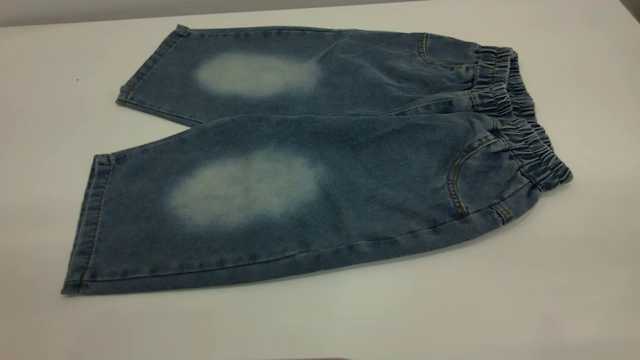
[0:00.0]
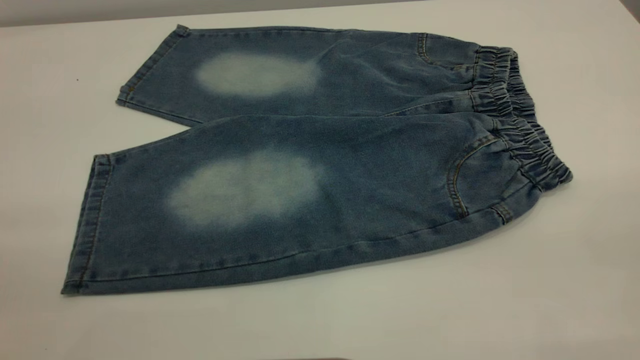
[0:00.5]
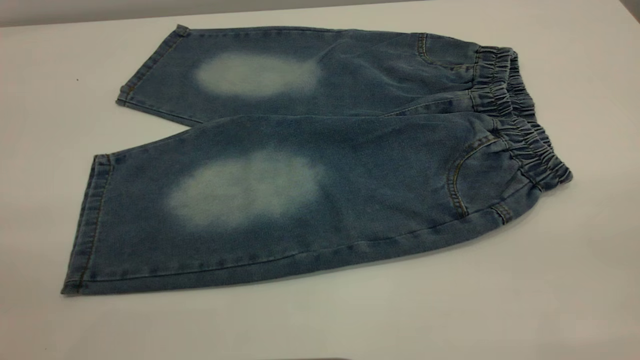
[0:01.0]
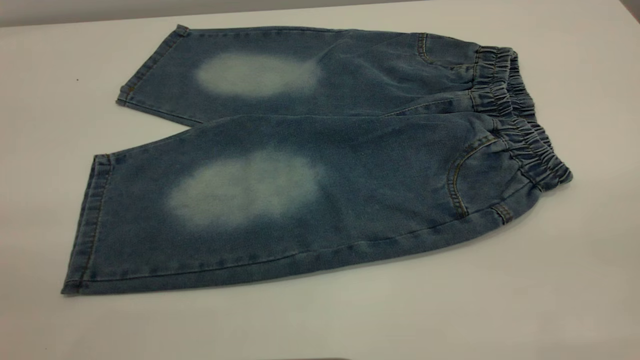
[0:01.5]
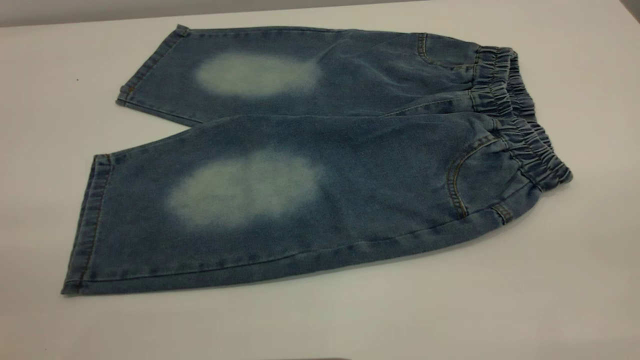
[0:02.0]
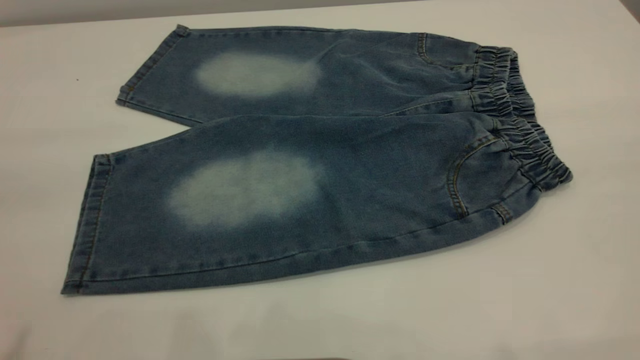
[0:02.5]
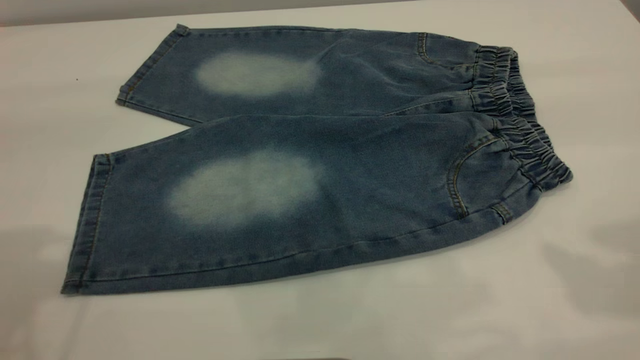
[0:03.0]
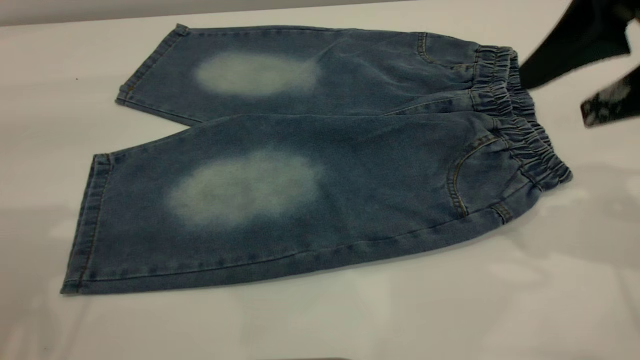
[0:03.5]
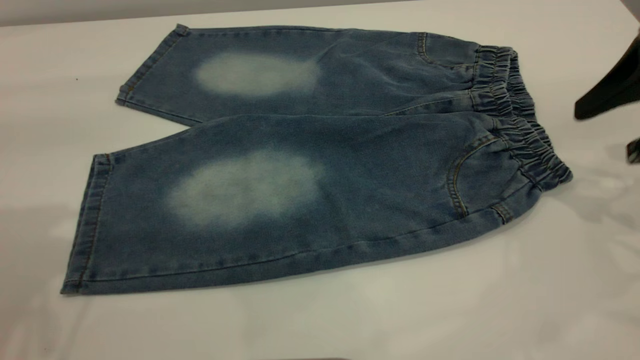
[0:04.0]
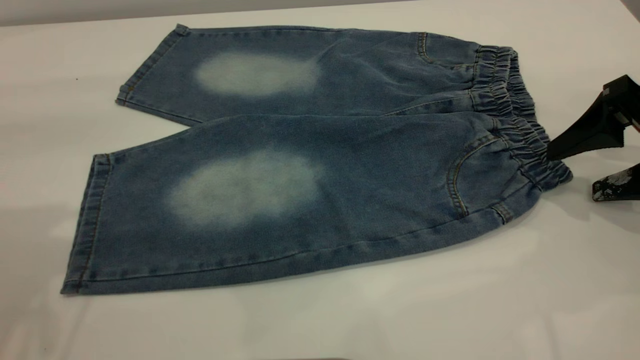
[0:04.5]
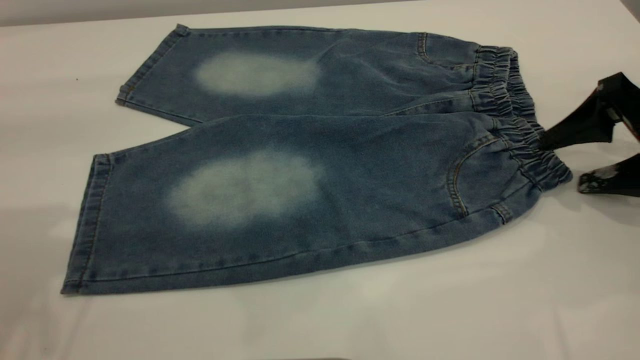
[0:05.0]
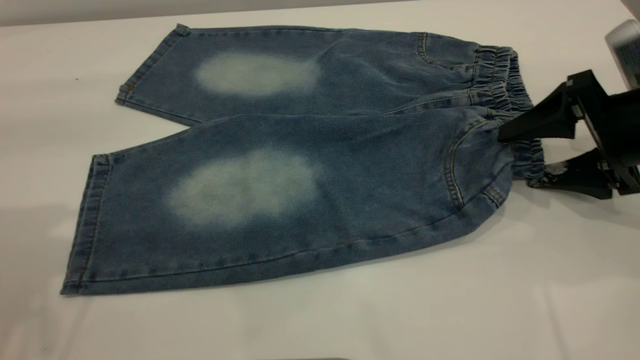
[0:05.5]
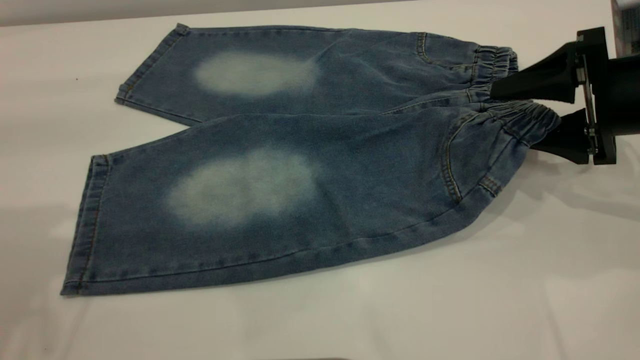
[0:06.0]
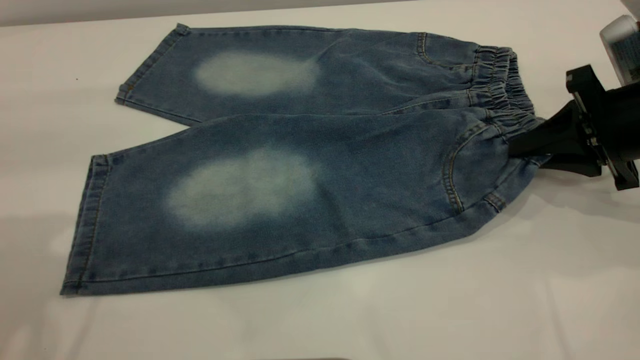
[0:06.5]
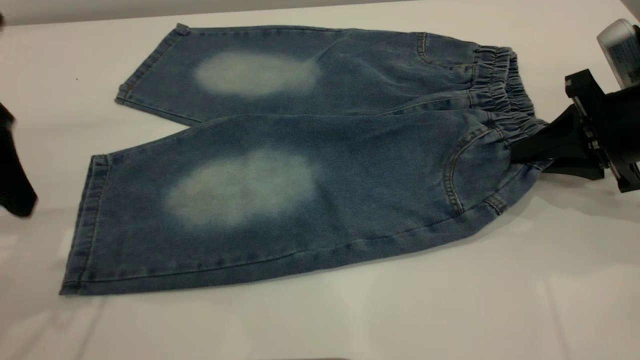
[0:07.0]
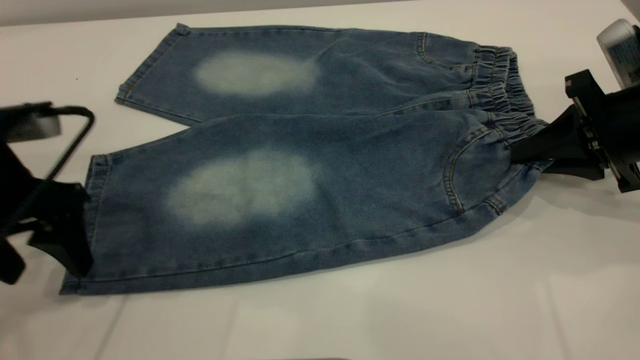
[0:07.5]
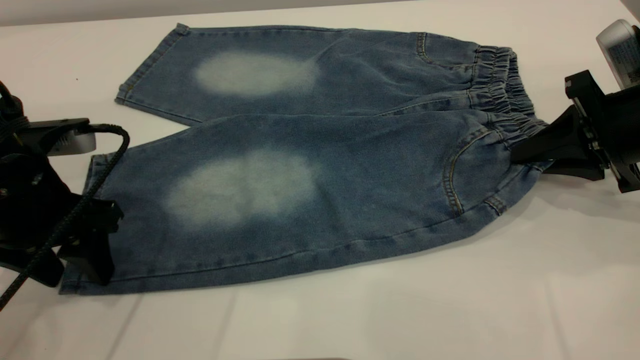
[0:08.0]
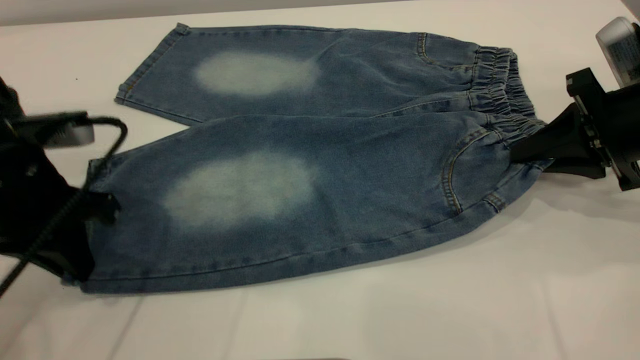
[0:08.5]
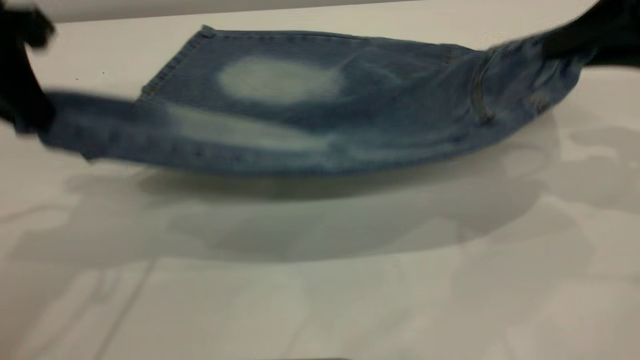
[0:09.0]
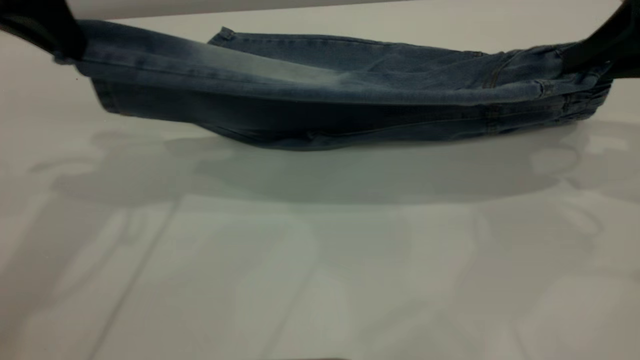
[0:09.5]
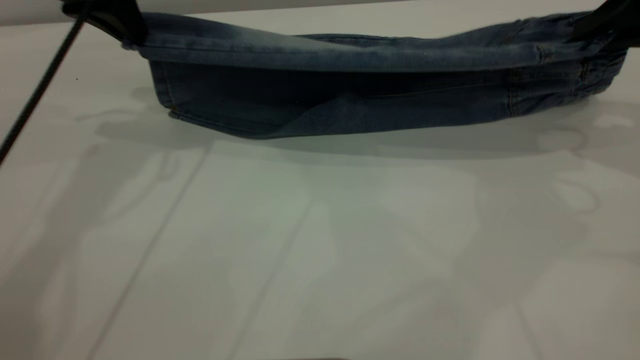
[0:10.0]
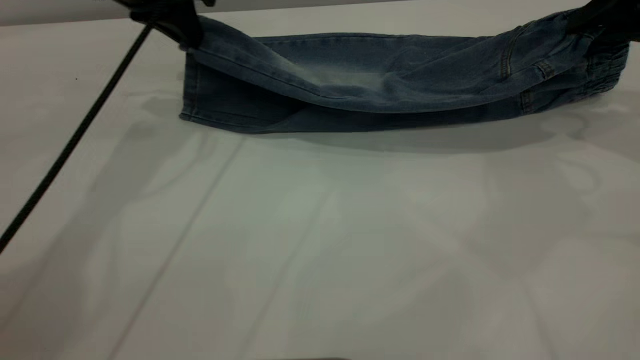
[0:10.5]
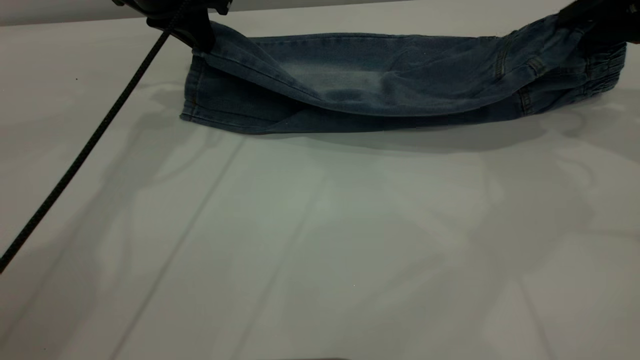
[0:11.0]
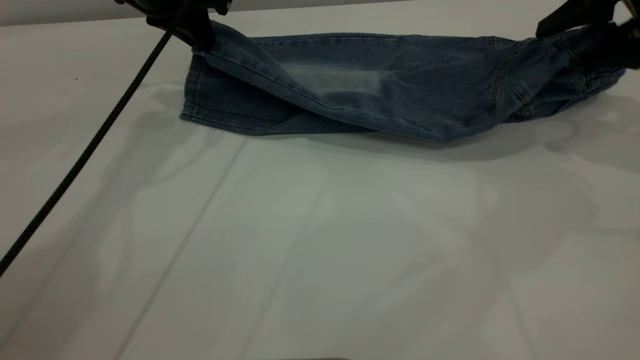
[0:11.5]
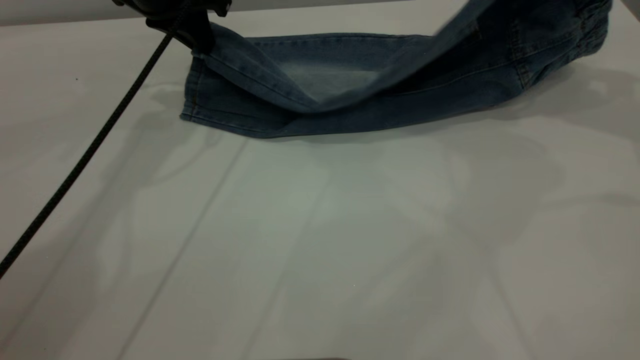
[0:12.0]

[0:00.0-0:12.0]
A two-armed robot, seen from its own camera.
0:00.0 to 0:02.0: Both grippers stay about where they are.
0:02.0 to 0:04.0: The right gripper travels forward and downward by some 35 cm.
0:04.0 to 0:06.0: The right gripper shifts some 5 cm downward.
0:06.0 to 0:08.0: The right gripper closes up. The left gripper is displaced downward by roughly 20 cm.
0:08.0 to 0:10.0: The right gripper is displaced upward by roughly 10 cm, while the left gripper travels forward and upward by about 20 cm, and closes its fingers.
0:10.0 to 0:12.0: The right gripper moves forward, about 5 cm, and opens and closes again. Meanwhile the left gripper shifts by about 10 cm.

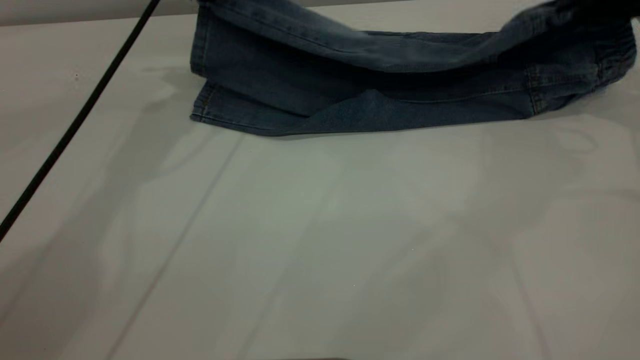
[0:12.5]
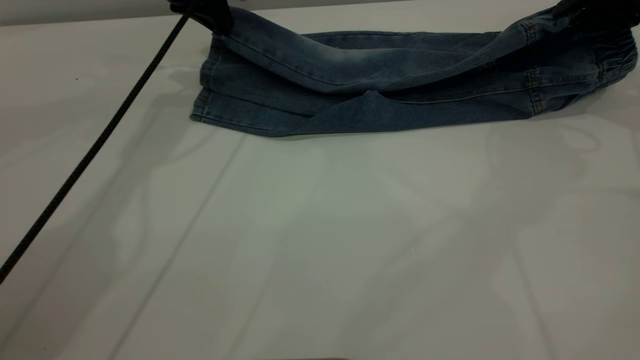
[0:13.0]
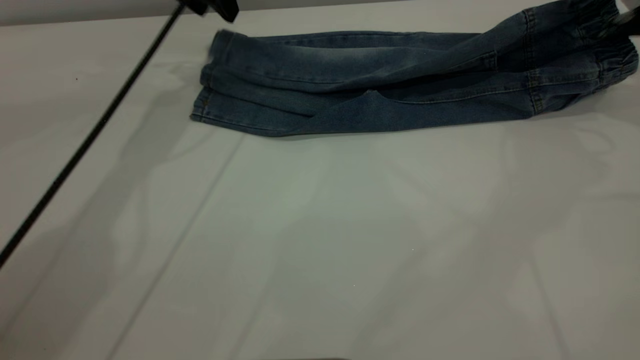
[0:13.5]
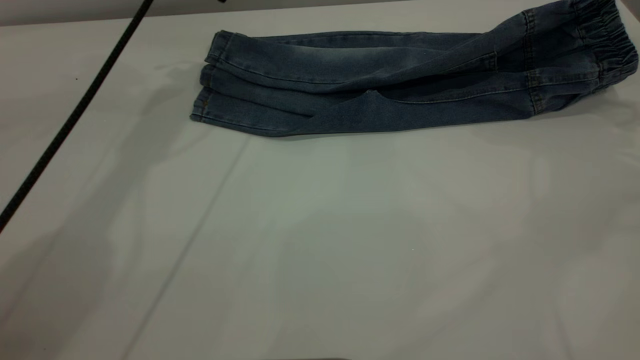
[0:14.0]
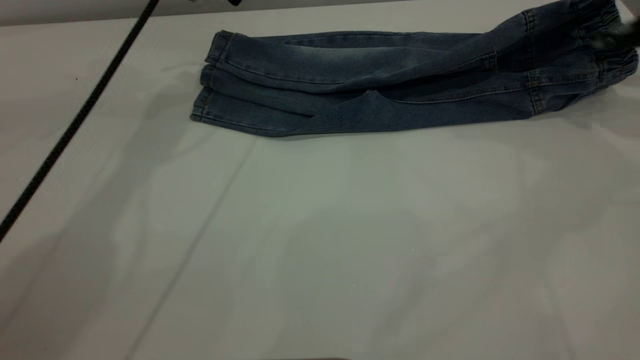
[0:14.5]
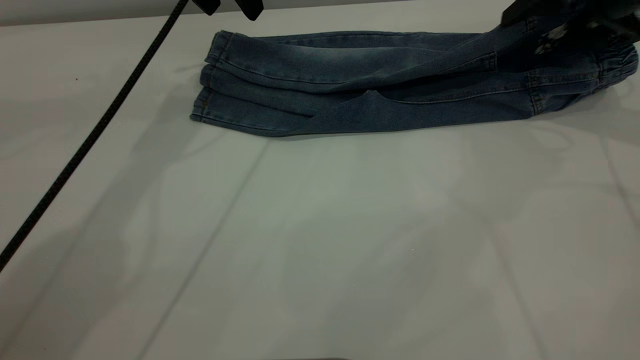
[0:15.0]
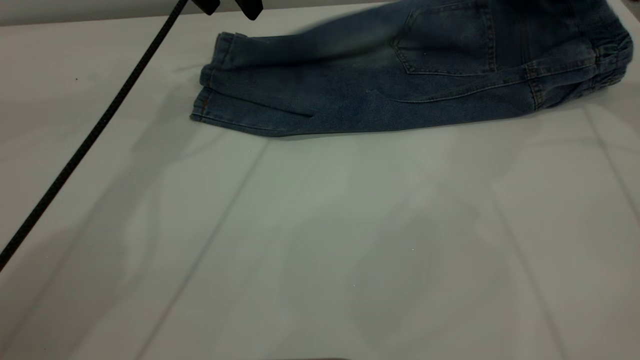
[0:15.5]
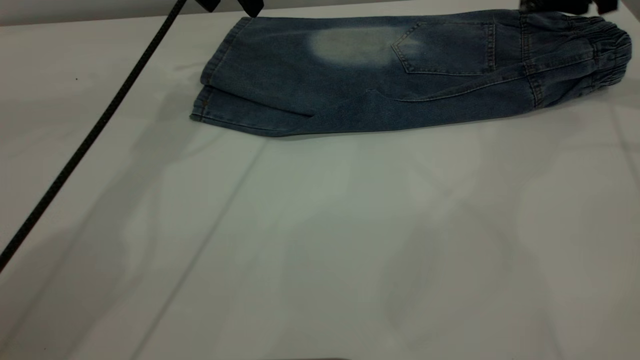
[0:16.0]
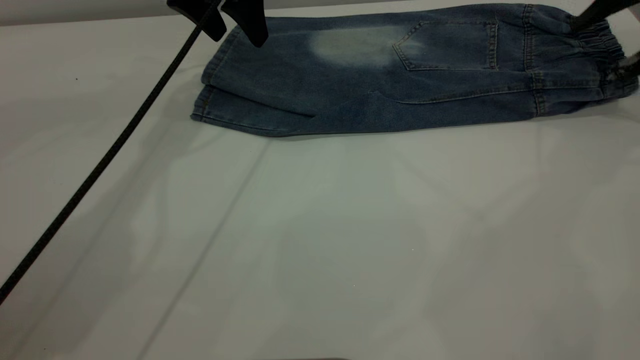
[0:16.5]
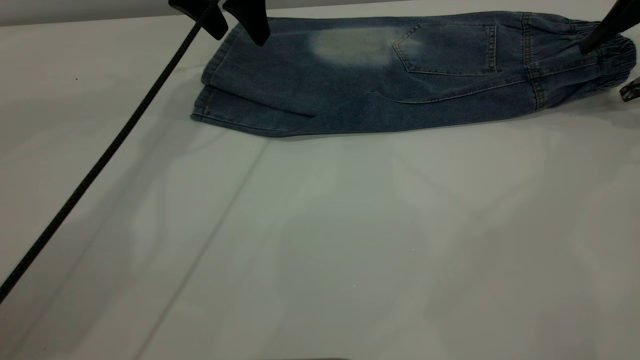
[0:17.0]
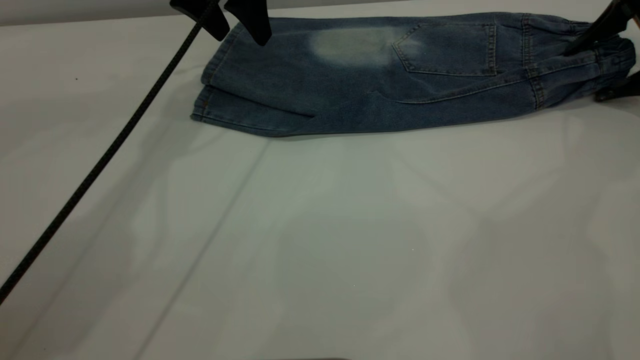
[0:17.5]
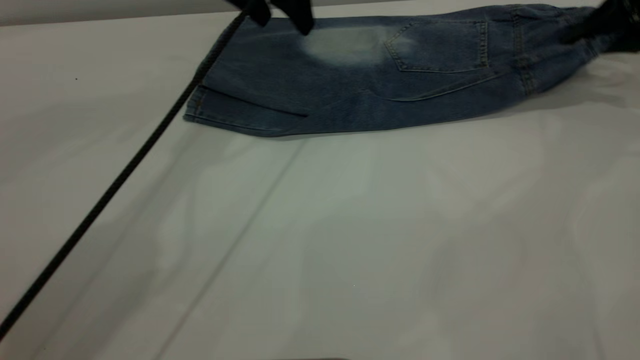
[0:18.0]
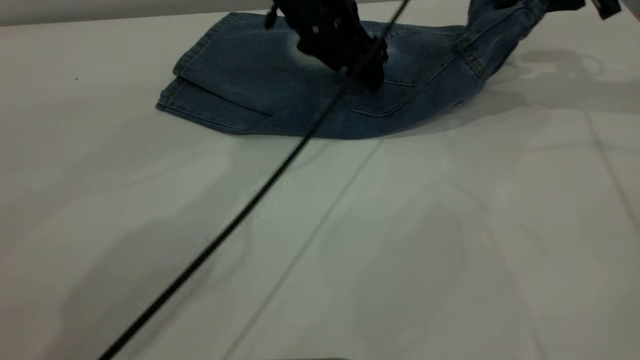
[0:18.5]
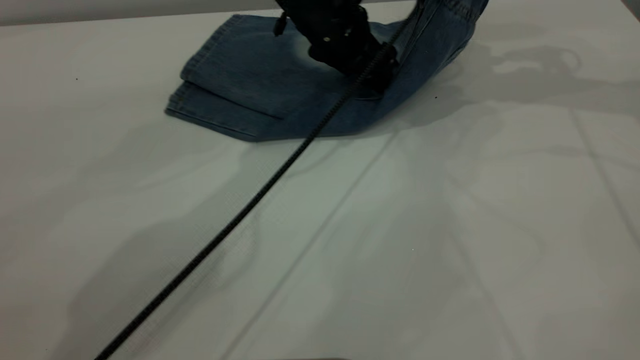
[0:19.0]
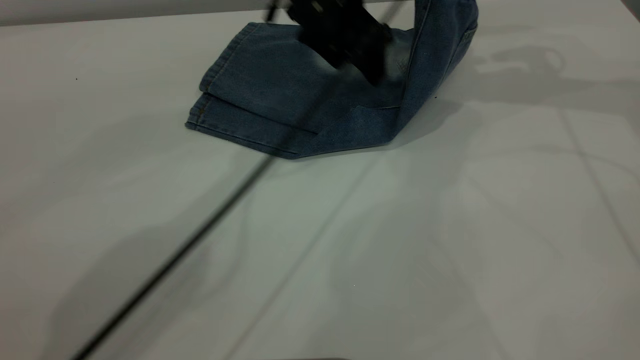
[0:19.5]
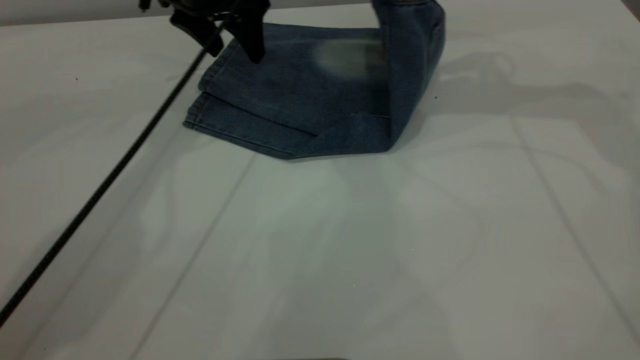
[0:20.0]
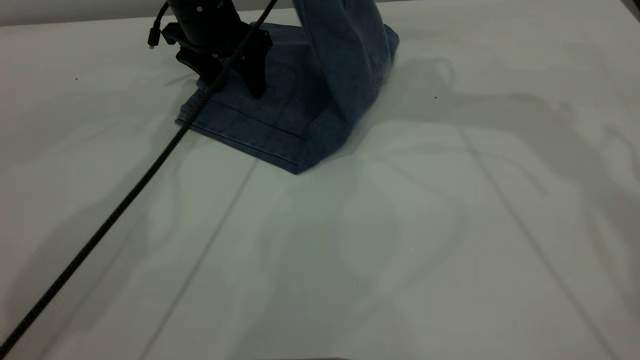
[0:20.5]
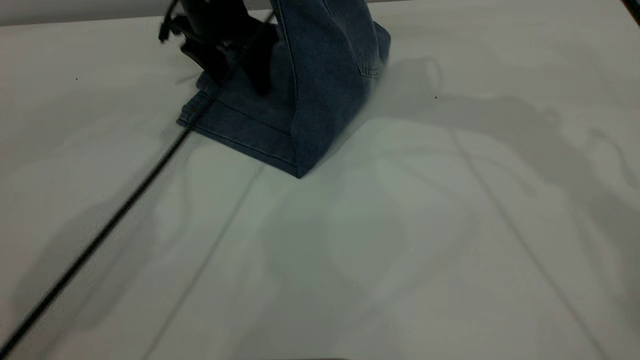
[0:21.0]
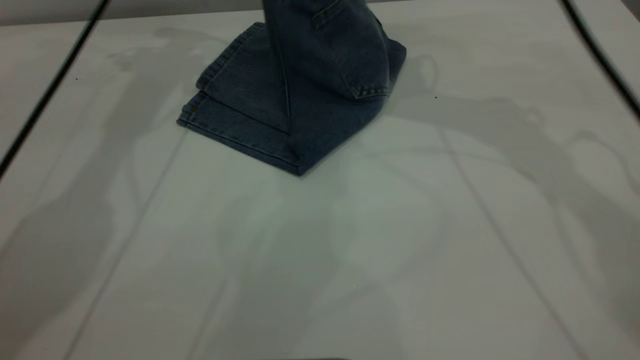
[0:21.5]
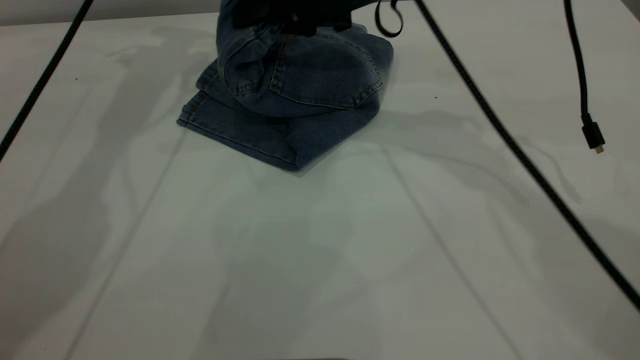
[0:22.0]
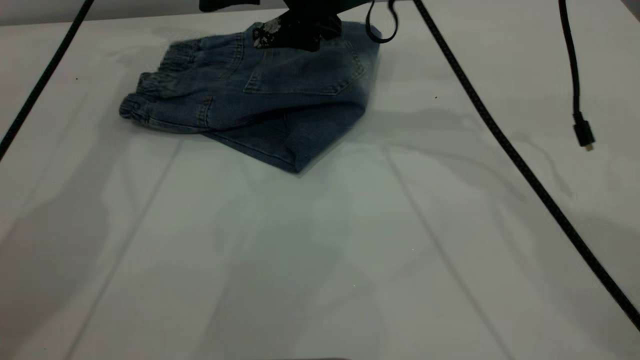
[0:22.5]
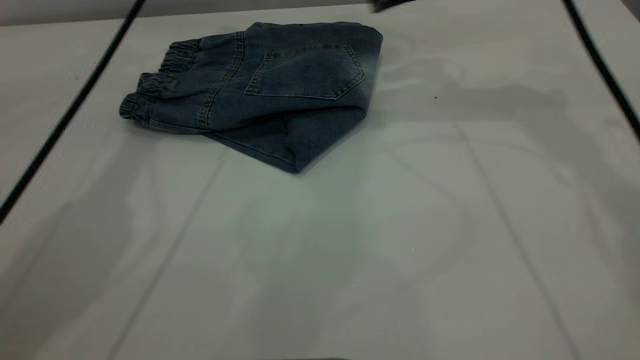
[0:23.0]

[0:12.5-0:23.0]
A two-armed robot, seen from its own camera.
Step, 0:14.0 to 0:22.5: Fold your pants from right to left.
0:12.5 to 0:14.5: The left gripper opens its fingers; the right gripper opens its fingers.
0:14.5 to 0:16.5: The right gripper reaches roughly 10 cm forward, then returns.
0:16.5 to 0:19.0: The right gripper is displaced to the left and upward by roughly 15 cm, and closes up. Meanwhile the left gripper moves to the right and downward, approximately 15 cm.
0:19.0 to 0:21.0: The grippers both shift to the left by roughly 15 cm.
0:21.0 to 0:23.0: The left gripper shifts some 10 cm upward, while the right gripper opens.
